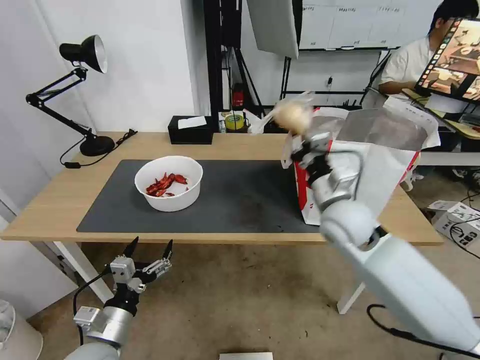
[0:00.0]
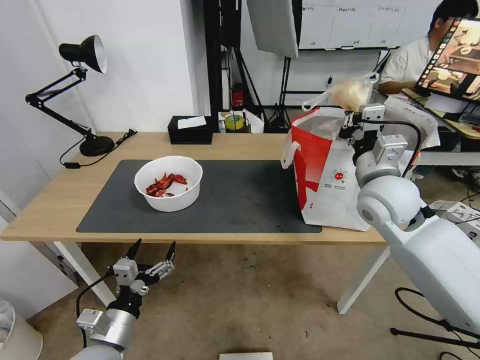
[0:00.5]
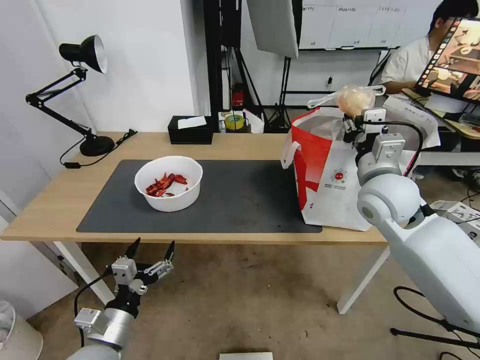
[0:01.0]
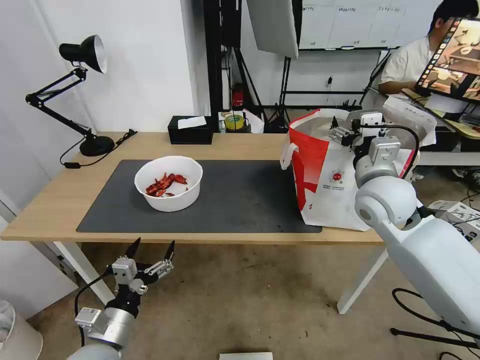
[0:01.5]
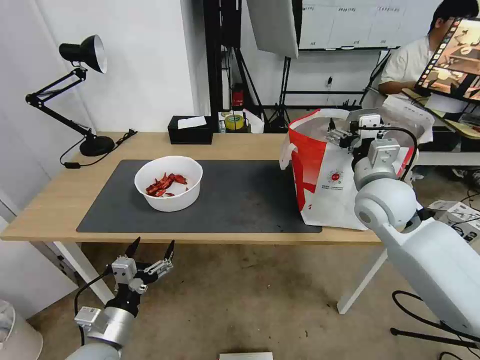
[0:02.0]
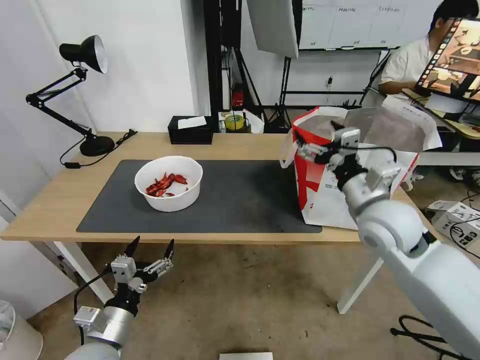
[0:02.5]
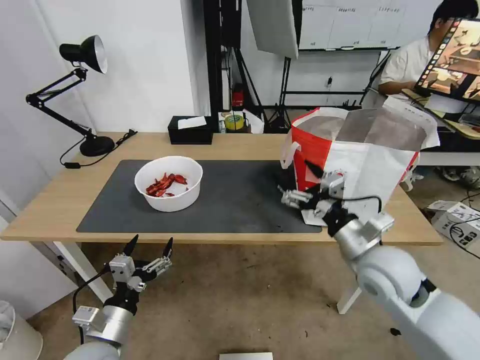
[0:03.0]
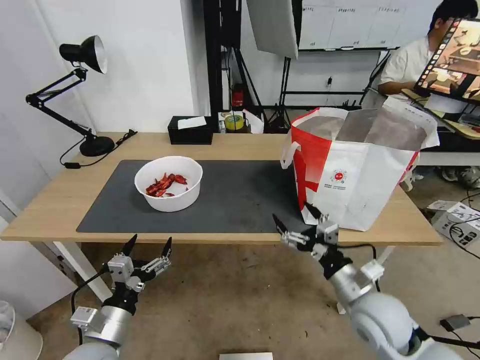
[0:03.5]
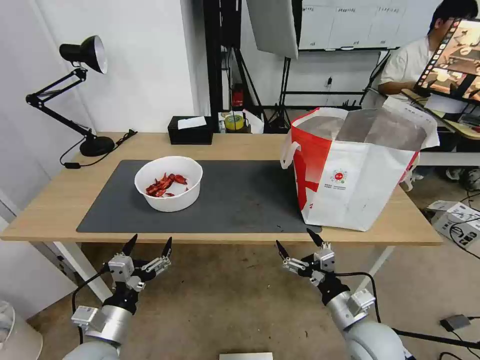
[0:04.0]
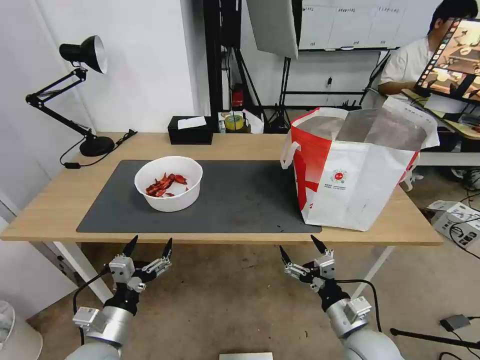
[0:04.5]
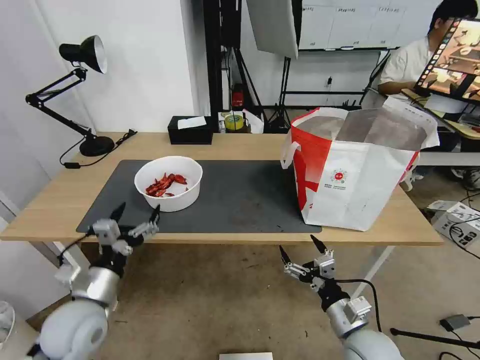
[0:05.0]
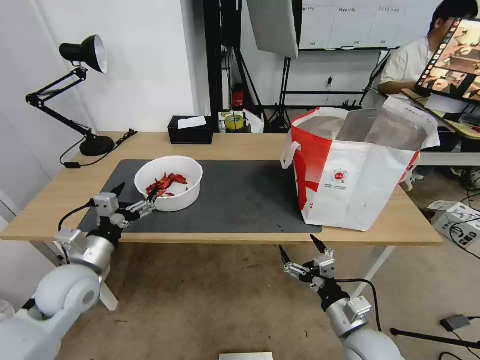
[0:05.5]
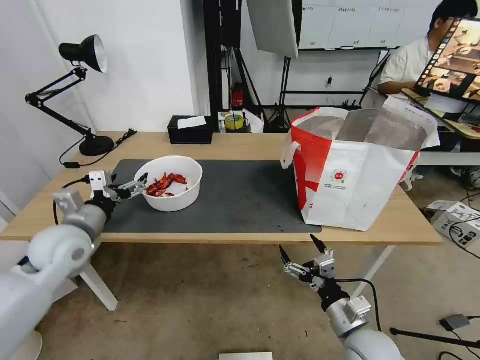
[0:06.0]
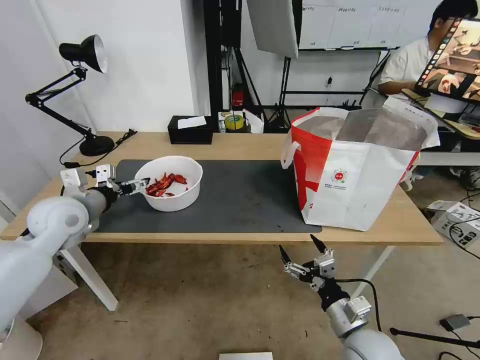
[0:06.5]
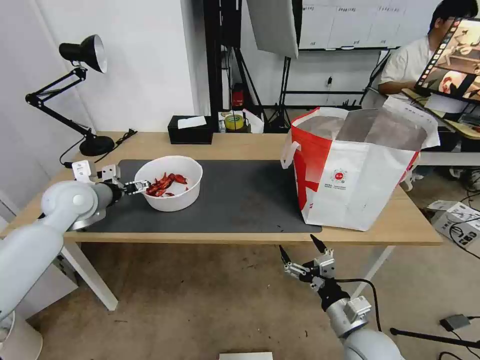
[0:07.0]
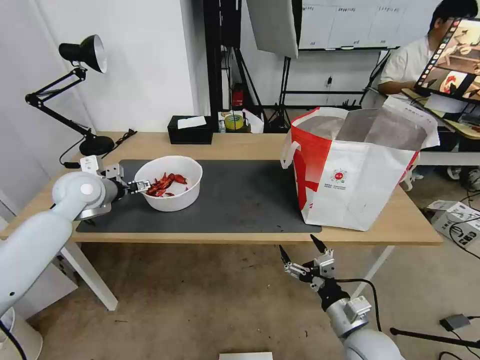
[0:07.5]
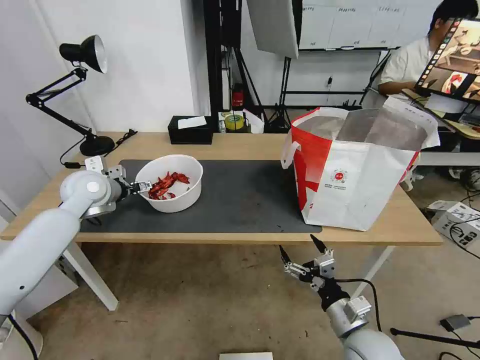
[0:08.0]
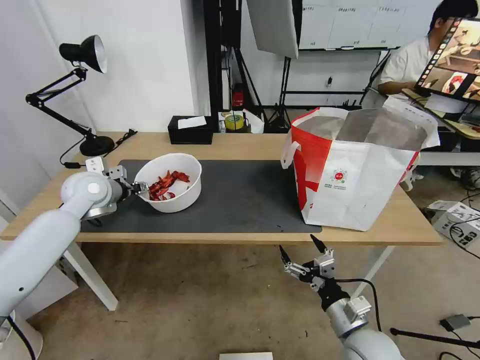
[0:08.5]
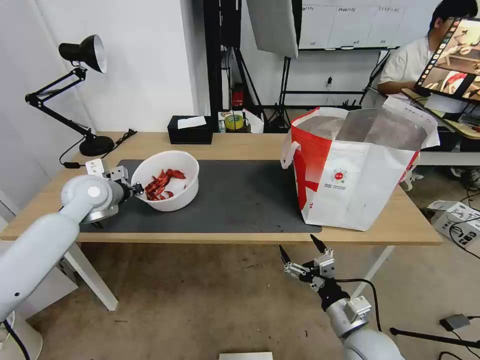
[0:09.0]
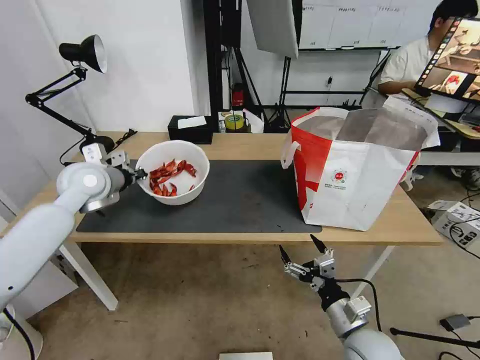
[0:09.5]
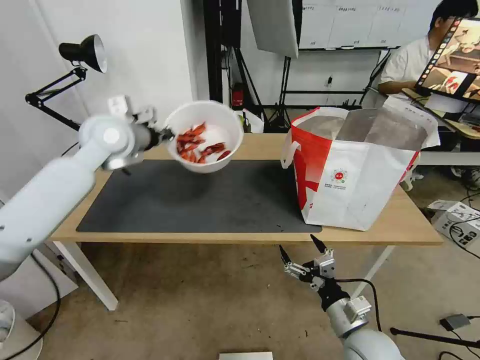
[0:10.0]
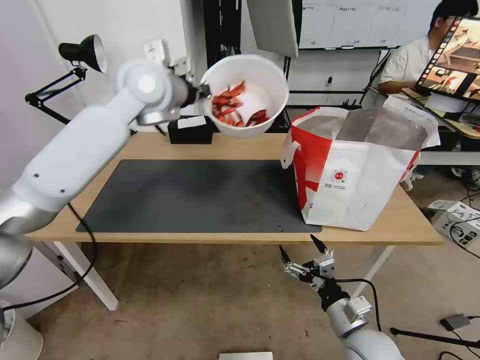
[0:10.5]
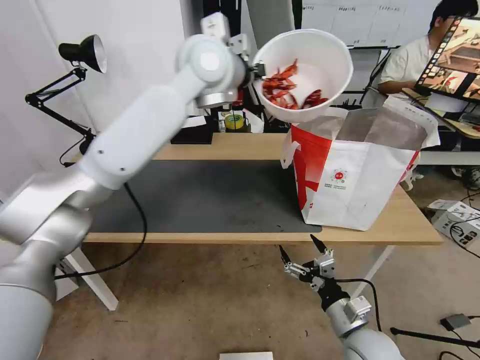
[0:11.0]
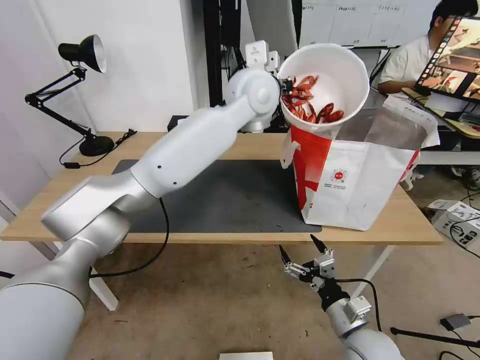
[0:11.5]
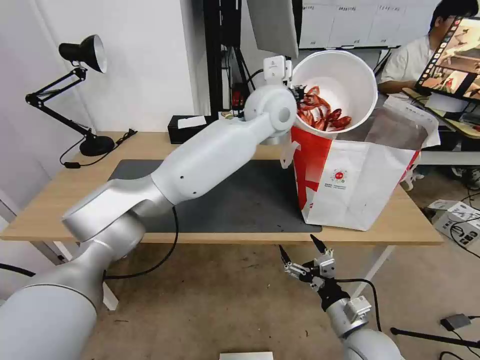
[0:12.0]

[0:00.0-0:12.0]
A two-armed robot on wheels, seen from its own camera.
Task of the whole recording: Pick up the trash from the table and place it into the takeout bag.
0:00.0 to 0:02.0: The right gripper is displaced to the right by some 5 cm, and opens its fingers.
0:02.0 to 0:04.0: The right gripper moves downward and backward, about 30 cm.
0:04.0 to 0:06.0: The left gripper heads forward, upward and to the left, covering roughly 25 cm.
0:06.0 to 0:08.0: The left gripper is displaced forward by approximately 10 cm.
0:08.0 to 0:10.0: The left gripper shifts some 15 cm upward and to the right, and closes its fingers.
0:10.0 to 0:12.0: The left gripper is displaced to the right by some 30 cm.

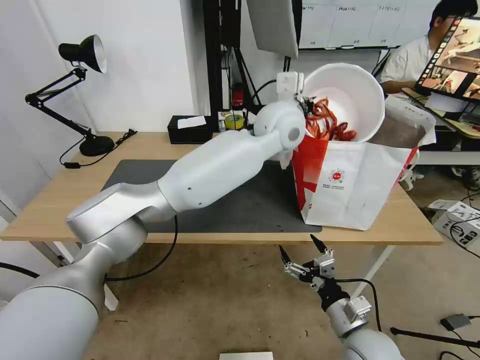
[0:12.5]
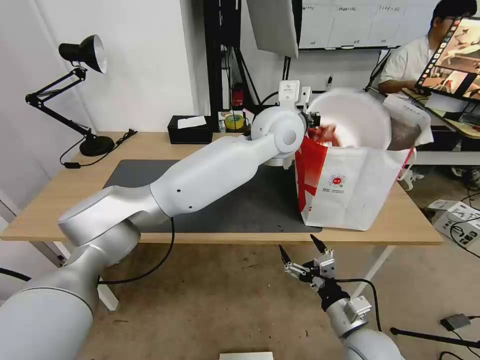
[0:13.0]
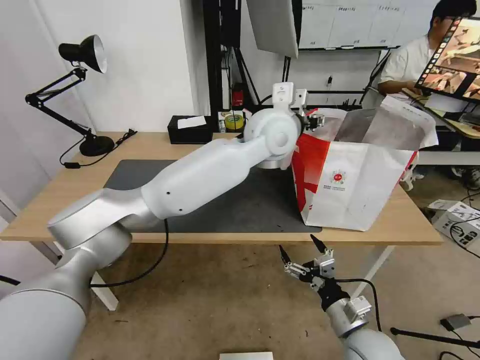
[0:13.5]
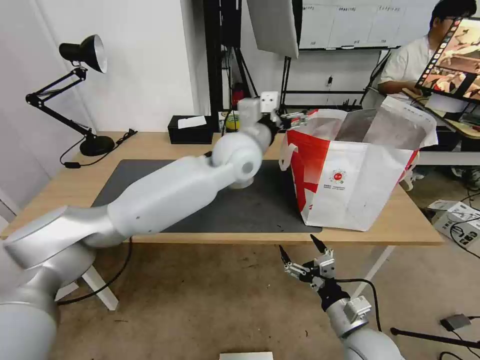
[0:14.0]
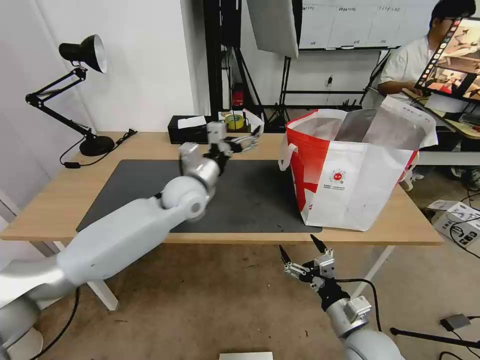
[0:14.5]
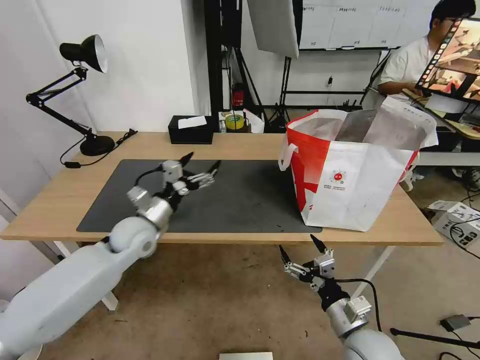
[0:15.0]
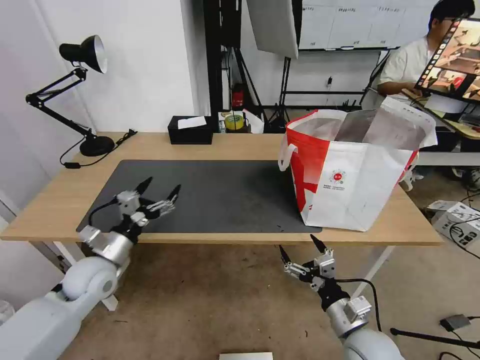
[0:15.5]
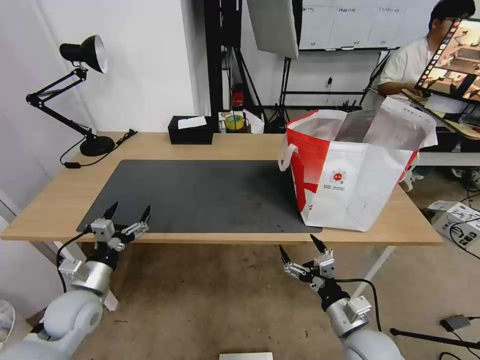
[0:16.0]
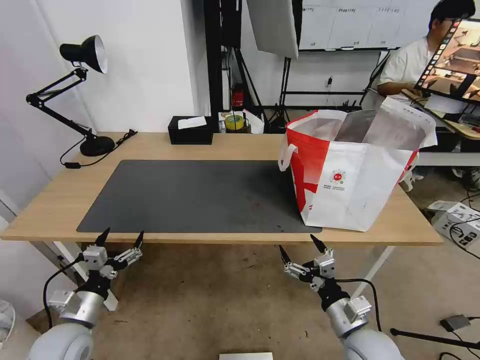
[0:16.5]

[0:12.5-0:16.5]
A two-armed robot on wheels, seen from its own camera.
Task of the whole recording: Pick up the trash from the table and place it into the takeout bag.
0:12.5 to 0:14.5: The left gripper shifts about 25 cm to the left and downward, and opens its fingers.
0:14.5 to 0:16.5: The left gripper heads backward, to the left and downward, covering about 40 cm.
